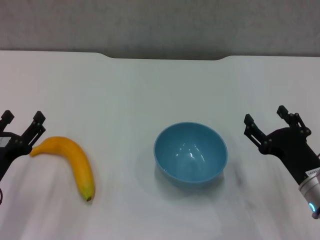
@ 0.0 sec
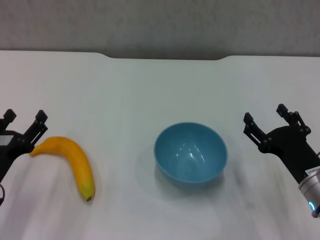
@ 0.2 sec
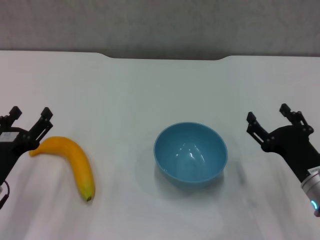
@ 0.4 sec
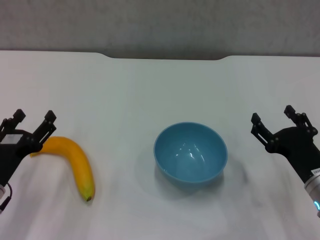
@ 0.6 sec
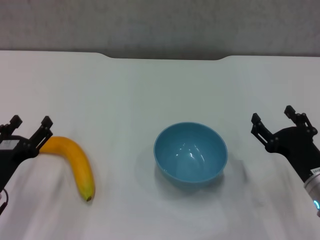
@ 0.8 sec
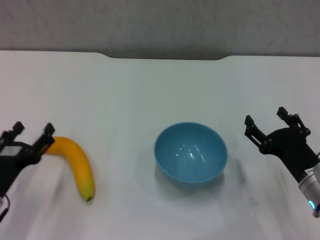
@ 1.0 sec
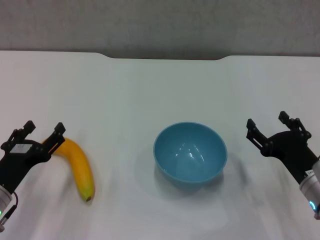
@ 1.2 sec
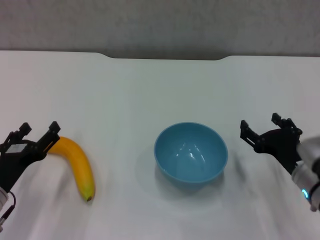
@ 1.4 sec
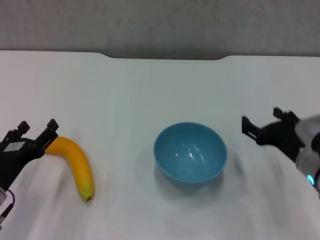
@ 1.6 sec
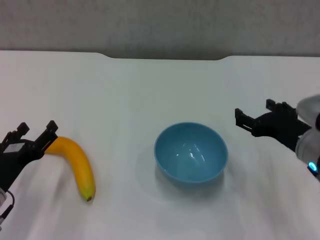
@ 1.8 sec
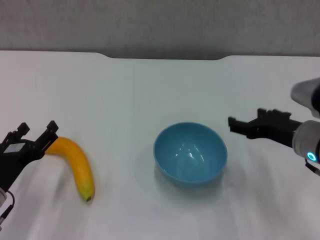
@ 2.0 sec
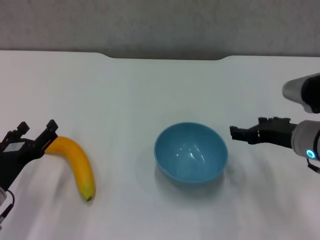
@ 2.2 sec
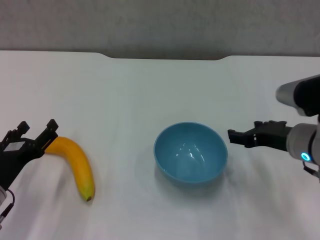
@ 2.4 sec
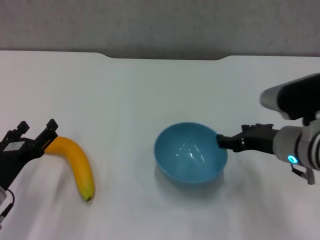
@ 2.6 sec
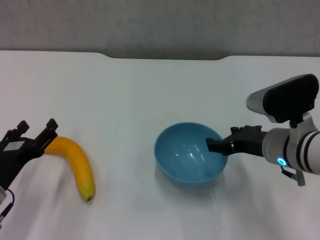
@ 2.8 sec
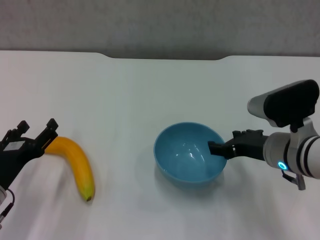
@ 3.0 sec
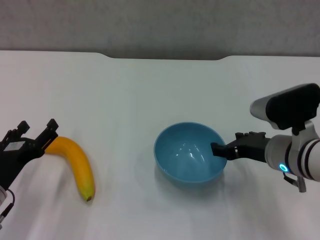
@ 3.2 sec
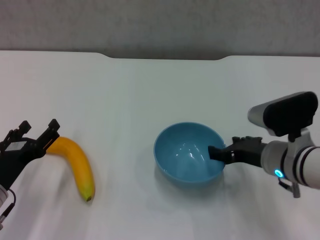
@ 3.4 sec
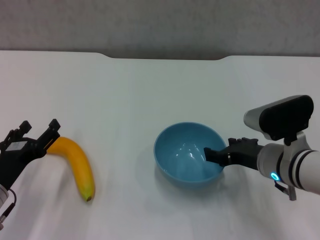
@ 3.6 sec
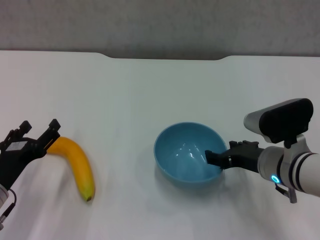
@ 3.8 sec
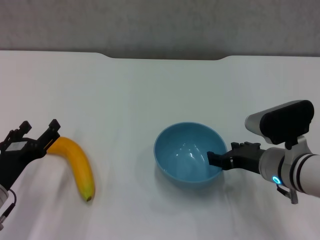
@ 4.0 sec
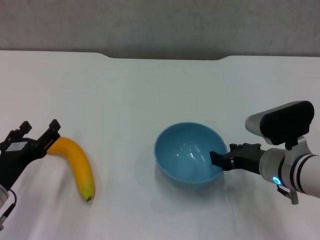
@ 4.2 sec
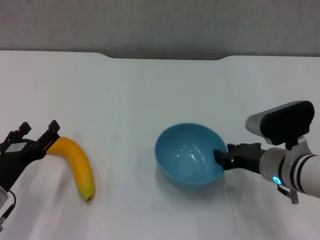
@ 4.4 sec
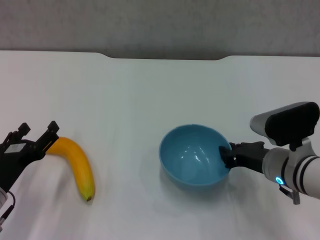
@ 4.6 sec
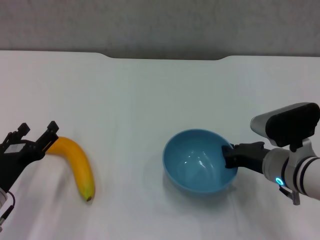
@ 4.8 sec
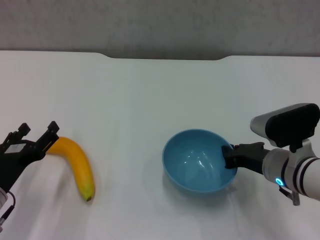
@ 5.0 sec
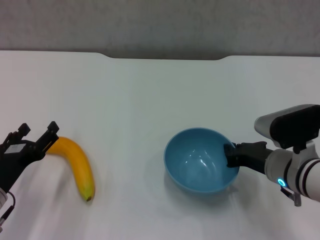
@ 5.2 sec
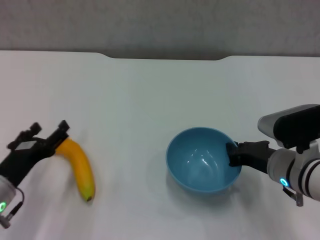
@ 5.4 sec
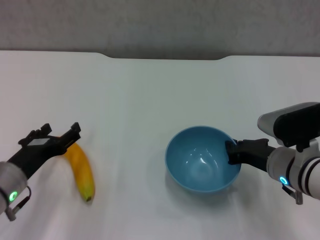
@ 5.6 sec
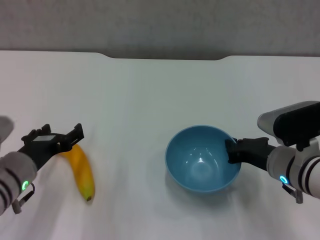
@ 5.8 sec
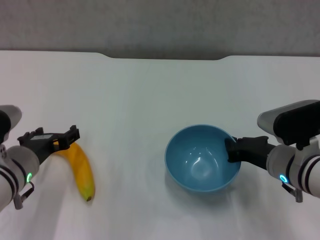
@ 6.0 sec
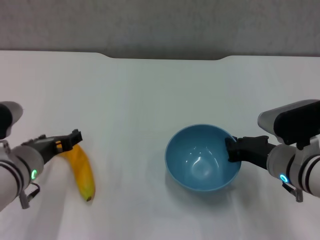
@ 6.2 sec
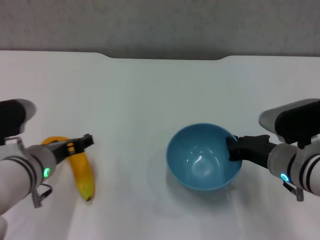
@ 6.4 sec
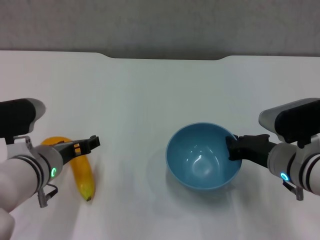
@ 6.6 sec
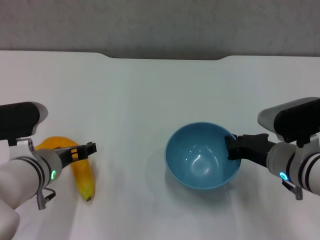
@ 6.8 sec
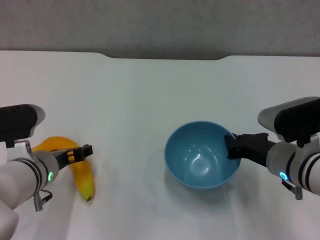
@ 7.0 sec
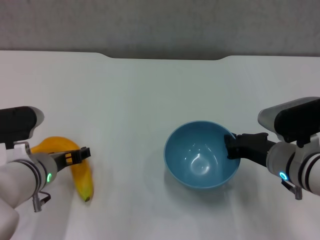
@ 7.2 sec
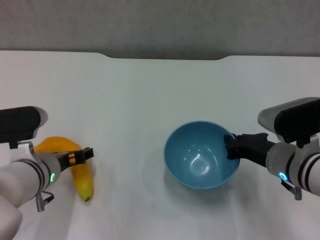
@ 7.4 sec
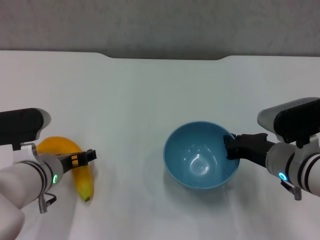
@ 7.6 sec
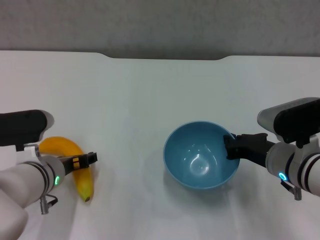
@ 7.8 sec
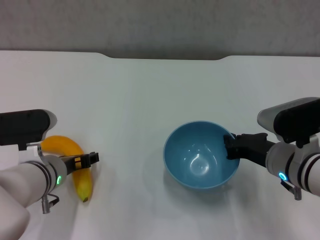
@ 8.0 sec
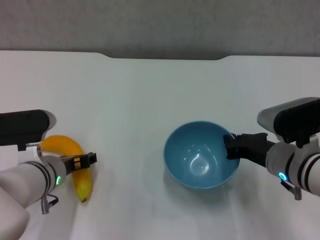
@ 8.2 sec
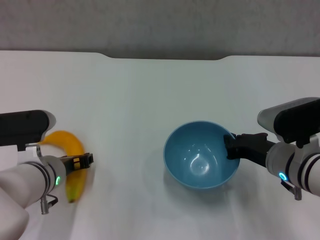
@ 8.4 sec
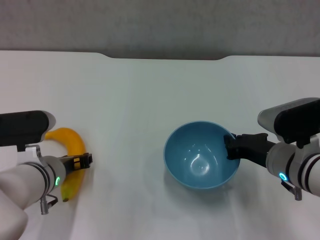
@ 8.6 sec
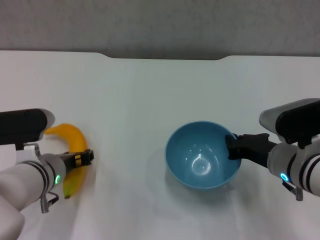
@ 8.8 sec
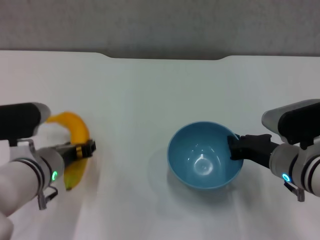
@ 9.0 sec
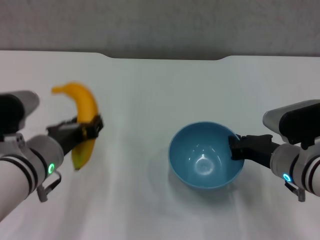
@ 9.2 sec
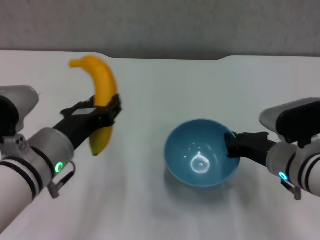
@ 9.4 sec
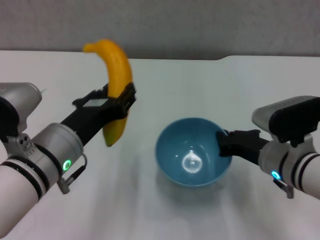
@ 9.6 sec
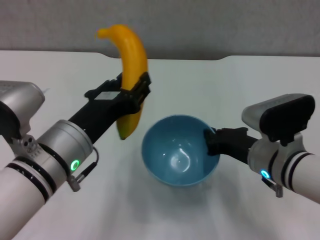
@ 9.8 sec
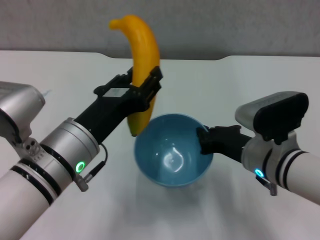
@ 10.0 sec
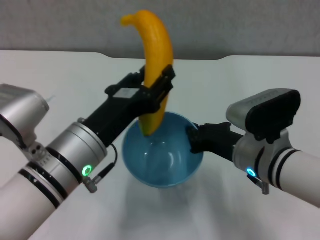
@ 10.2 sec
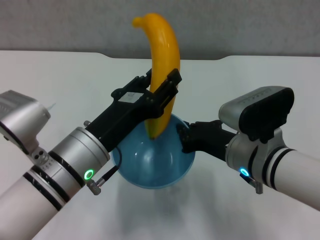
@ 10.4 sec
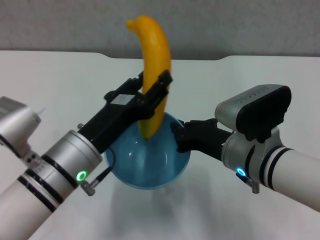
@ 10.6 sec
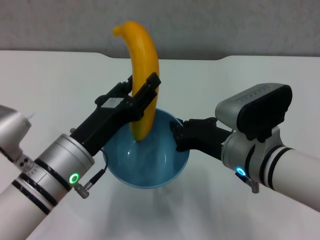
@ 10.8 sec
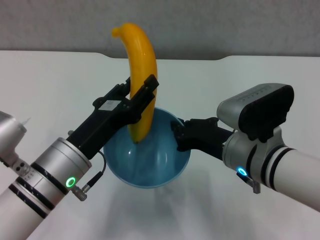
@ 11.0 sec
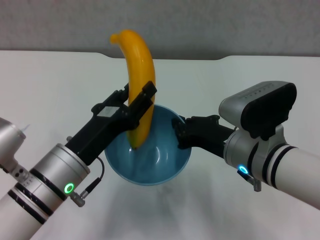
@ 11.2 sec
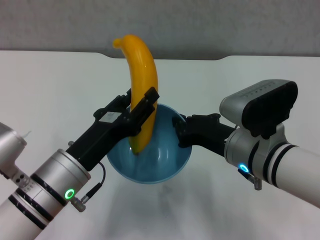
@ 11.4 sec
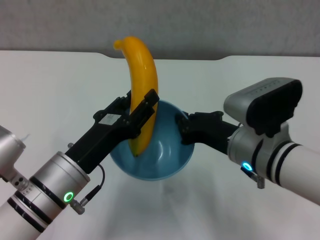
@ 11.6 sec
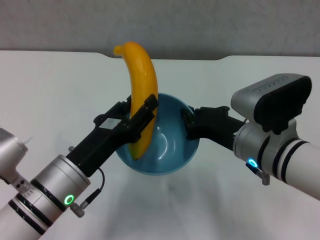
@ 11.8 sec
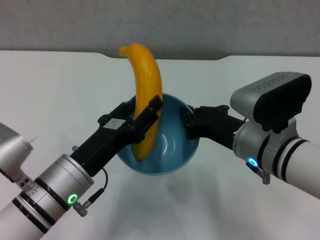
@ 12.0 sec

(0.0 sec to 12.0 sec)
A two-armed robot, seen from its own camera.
Step, 0.0 sec - 4.6 sec: Grasp the blue bowl with right gripper.
Step, 4.8 sec - 5.6 sec: Lift the blue bowl with right gripper.
Step, 5.8 sec - 8.4 sec: Grasp the banana with left gripper.
0.0 sec - 1.6 sec: The grippers make only small movements.
1.6 sec - 3.0 sec: The right gripper changes place by approximately 5 cm.
3.0 sec - 4.4 sec: There are only small adjustments of the grippers.
4.4 sec - 6.0 sec: The right gripper closes. The left gripper is displaced to the right and upward by about 10 cm.
6.0 sec - 7.6 sec: The grippers move only a little.
7.6 sec - 9.0 sec: The left gripper closes.
9.0 sec - 10.4 sec: The left gripper travels to the right by roughly 5 cm; the right gripper is displaced to the left by roughly 5 cm.
10.4 sec - 12.0 sec: The left gripper shifts by about 5 cm.

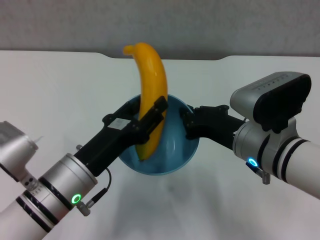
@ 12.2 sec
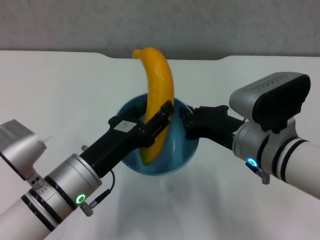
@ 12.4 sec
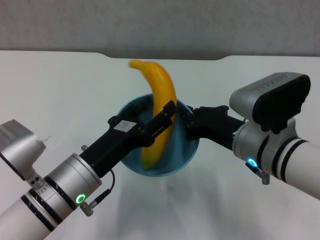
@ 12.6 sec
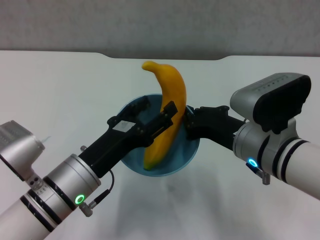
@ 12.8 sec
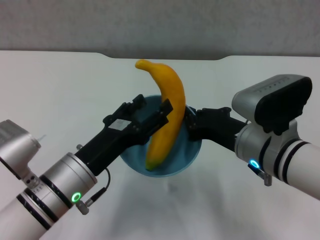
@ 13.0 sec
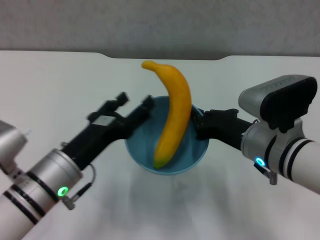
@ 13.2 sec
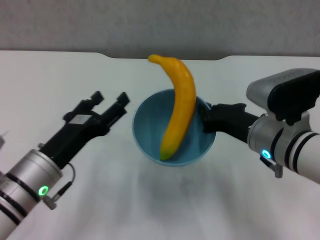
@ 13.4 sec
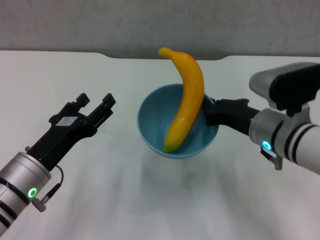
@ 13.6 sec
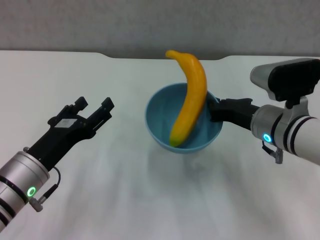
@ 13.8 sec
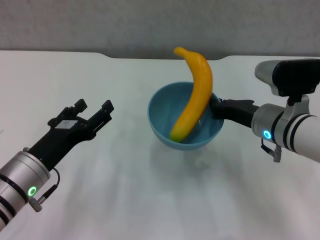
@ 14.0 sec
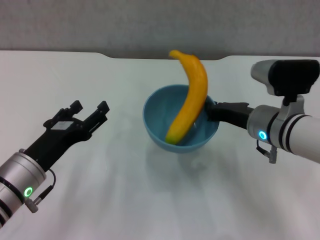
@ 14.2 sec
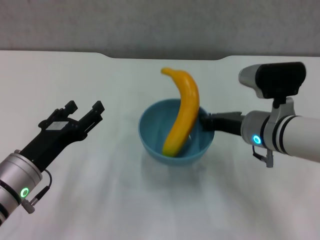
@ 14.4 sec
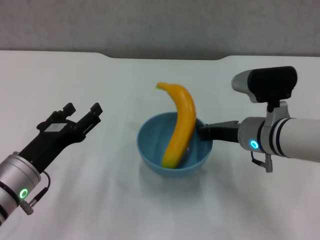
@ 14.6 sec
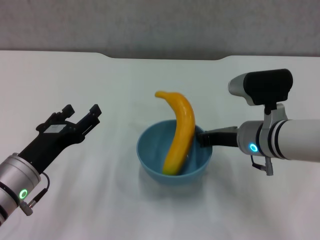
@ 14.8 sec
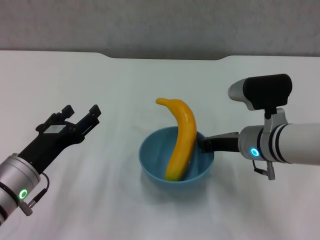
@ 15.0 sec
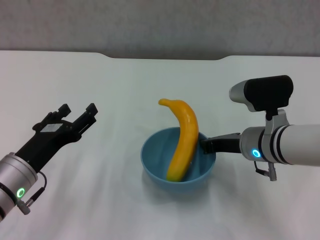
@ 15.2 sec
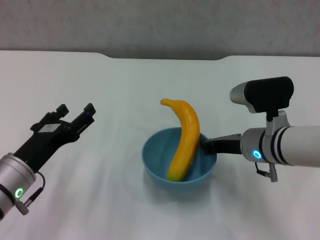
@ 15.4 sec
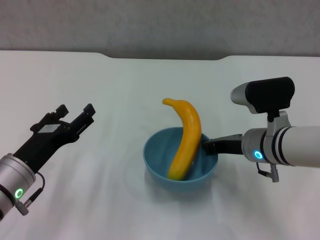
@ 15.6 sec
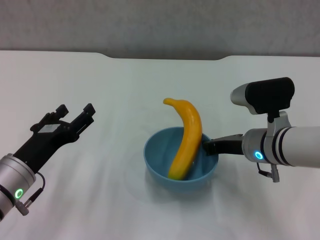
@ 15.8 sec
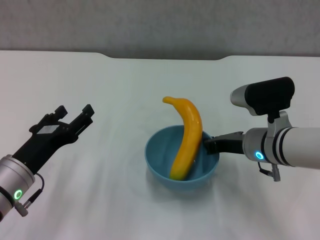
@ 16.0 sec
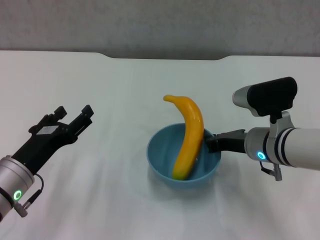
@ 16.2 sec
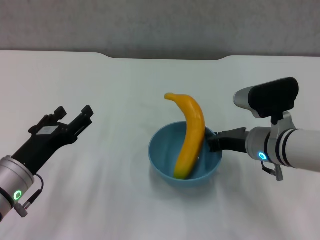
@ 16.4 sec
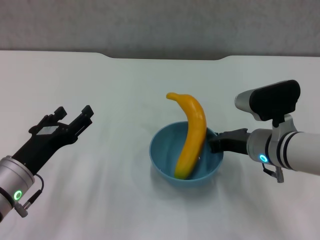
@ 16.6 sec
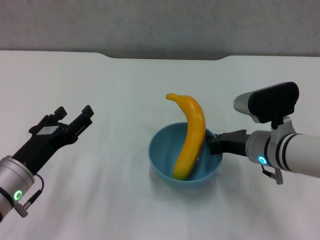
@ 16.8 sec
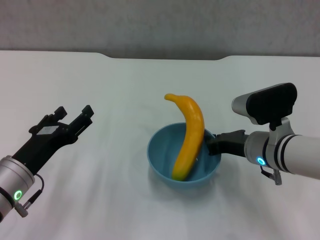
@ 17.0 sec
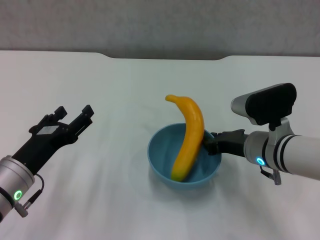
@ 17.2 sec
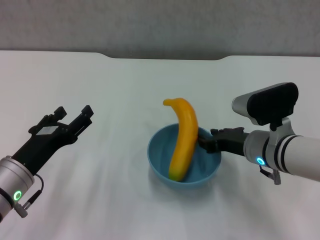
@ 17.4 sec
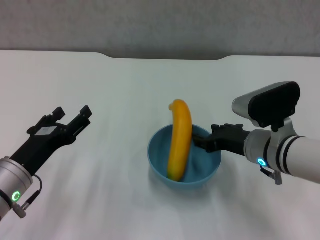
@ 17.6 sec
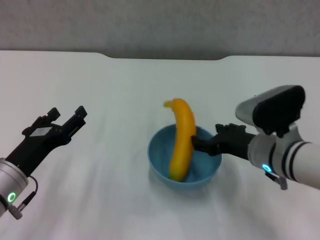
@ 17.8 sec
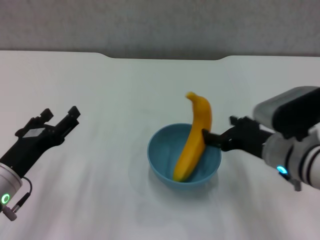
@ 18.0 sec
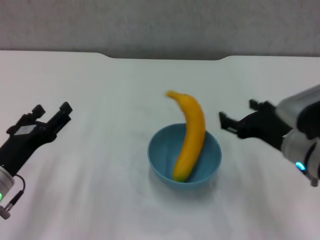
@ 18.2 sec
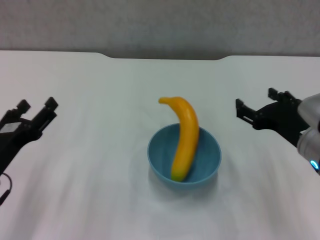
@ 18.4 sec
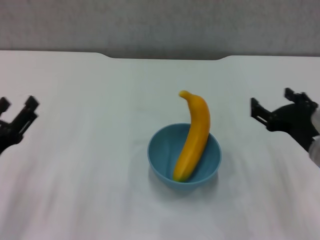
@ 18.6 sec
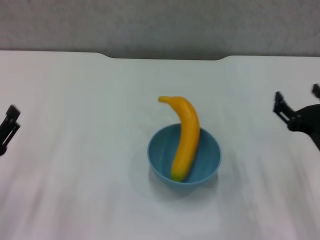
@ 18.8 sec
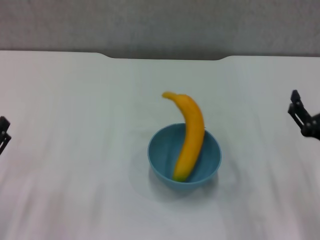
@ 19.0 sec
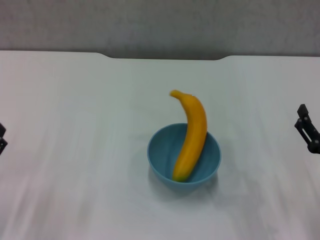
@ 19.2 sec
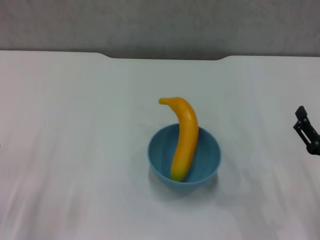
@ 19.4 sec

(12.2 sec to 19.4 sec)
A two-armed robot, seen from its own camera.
Step, 13.2 sec - 17.8 sec: Place the bowl on the table with right gripper.
12.2 sec - 13.6 sec: The left gripper moves to the left, roughly 5 cm, and opens its fingers.
15.0 sec - 16.6 sec: The grippers stay close to where they were, moving slightly.
16.6 sec - 18.0 sec: The right gripper opens up.
18.0 sec - 19.4 sec: The left gripper heads to the left and backward, covering about 10 cm. Meanwhile the right gripper is displaced to the right and backward by roughly 15 cm.
